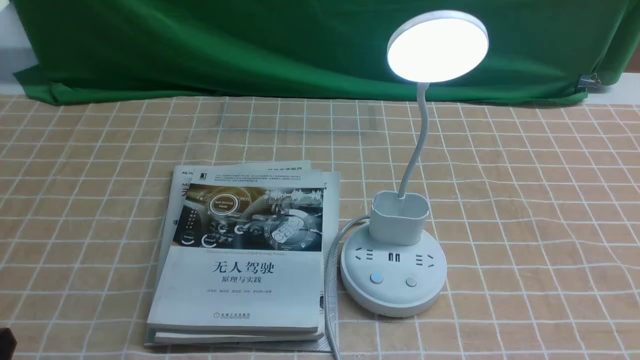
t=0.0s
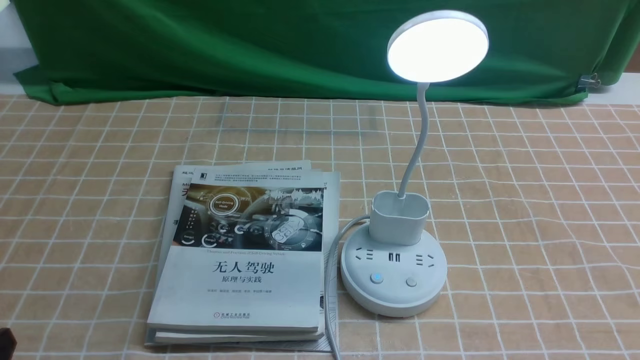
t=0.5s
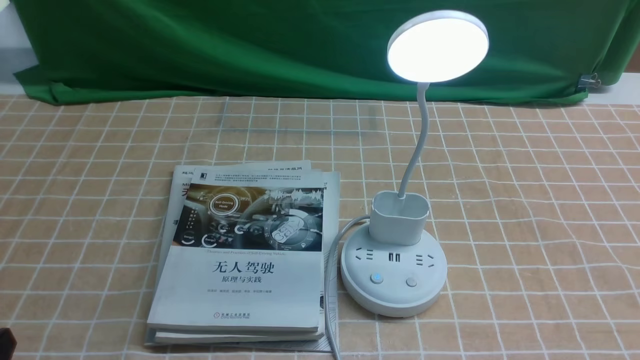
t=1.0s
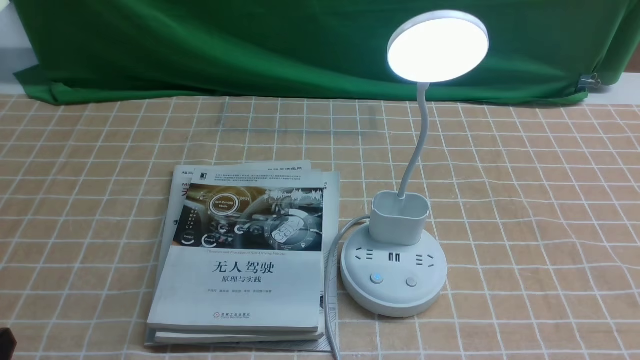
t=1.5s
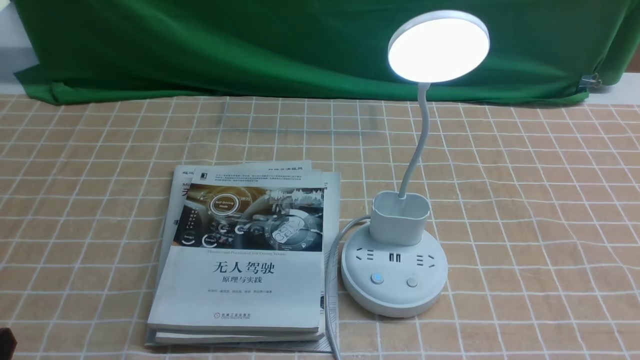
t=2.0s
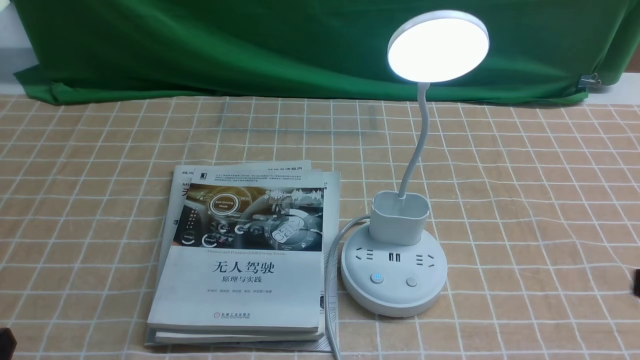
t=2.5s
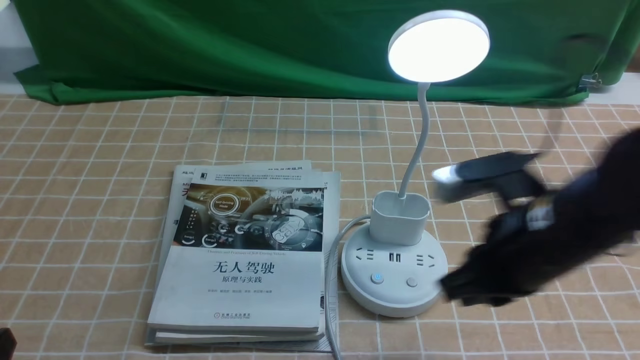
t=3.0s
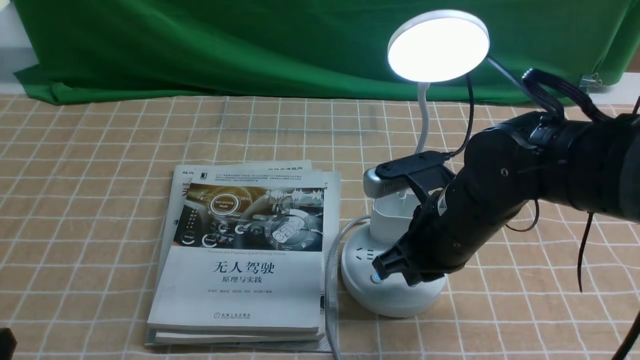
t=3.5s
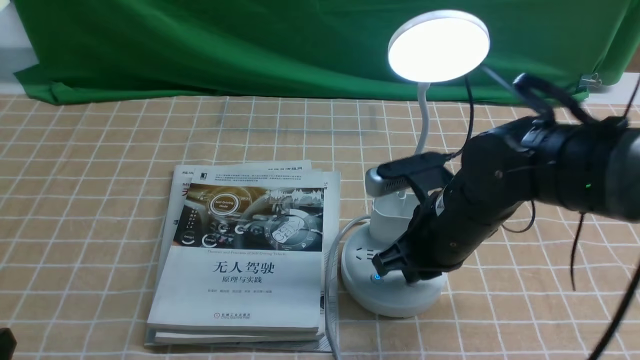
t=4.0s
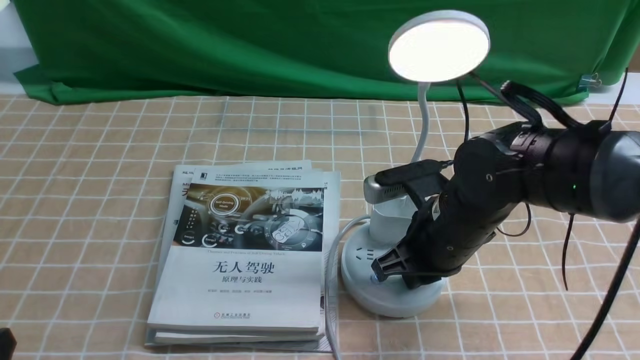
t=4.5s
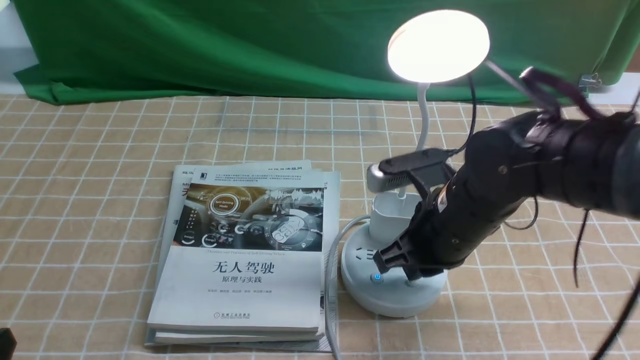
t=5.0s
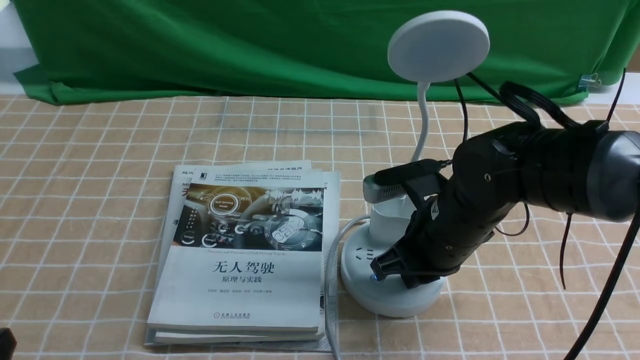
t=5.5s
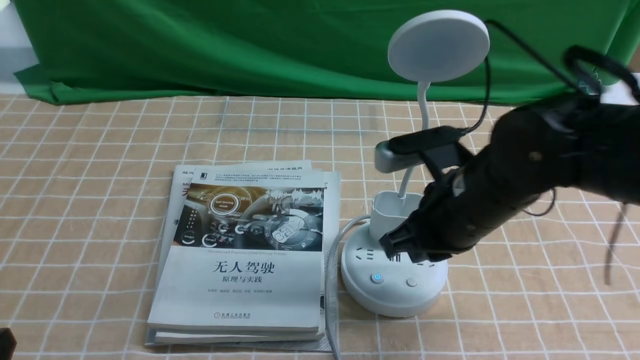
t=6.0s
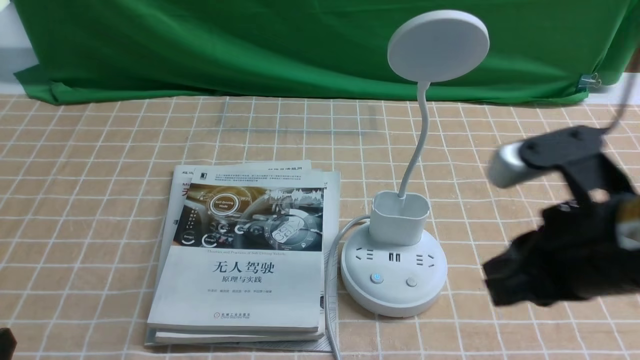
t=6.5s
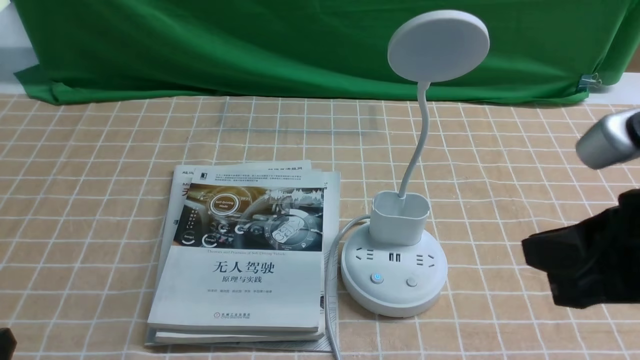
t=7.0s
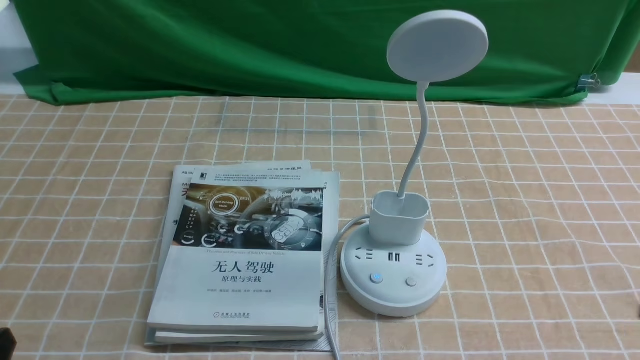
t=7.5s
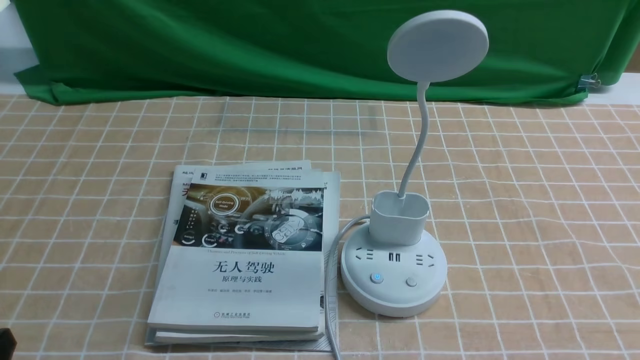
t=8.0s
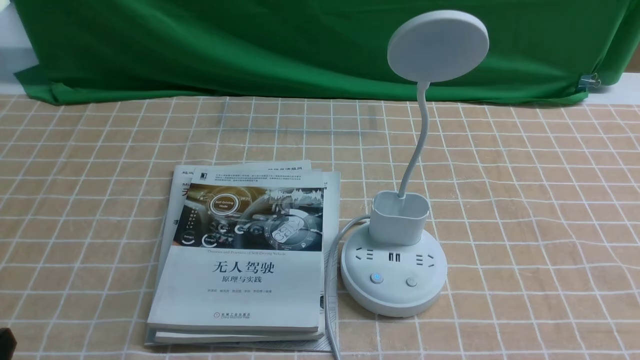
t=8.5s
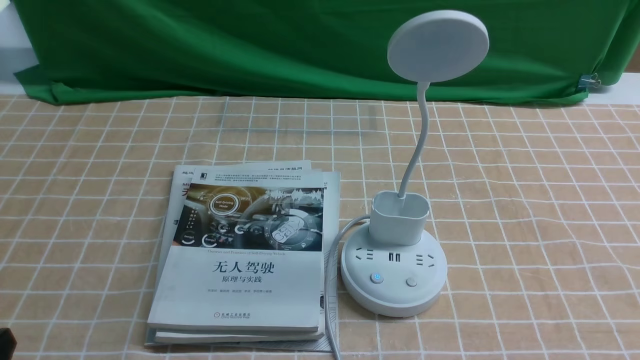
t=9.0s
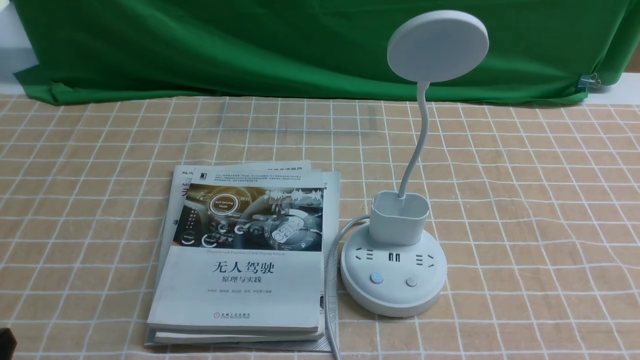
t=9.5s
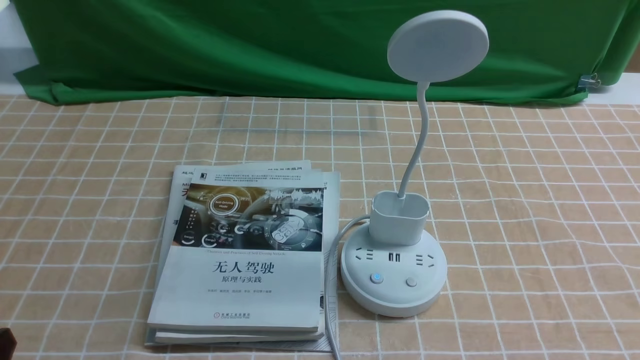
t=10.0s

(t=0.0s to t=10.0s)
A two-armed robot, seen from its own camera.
Task of the whole recording: turn off the desk lamp on the light coffee tablecloth by hand.
Step, t=0.0s - t=5.5s: use the right arm to press the button switch on the lamp holder.
t=2.0s - t=4.0s: The right gripper goes about 30 cm forward and to the left, and closes.
t=4.0s - t=6.0s: The grippers make only small movements.
t=6.0s - t=8.0s: The right gripper travels backward and to the right by roughly 30 cm.

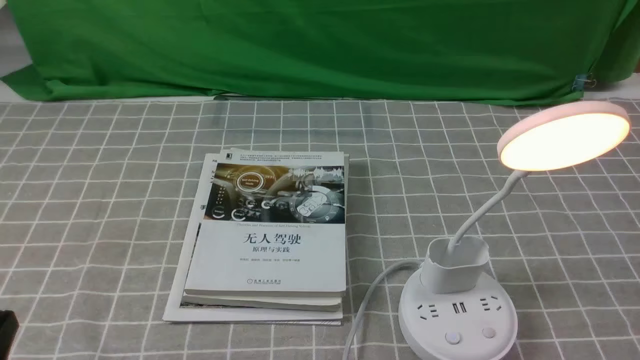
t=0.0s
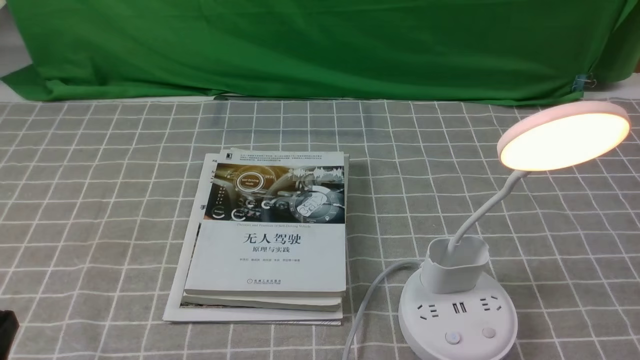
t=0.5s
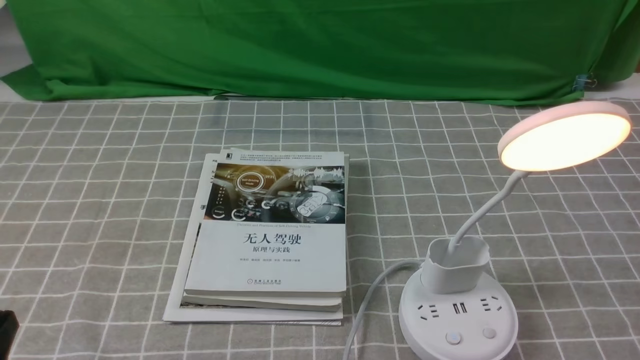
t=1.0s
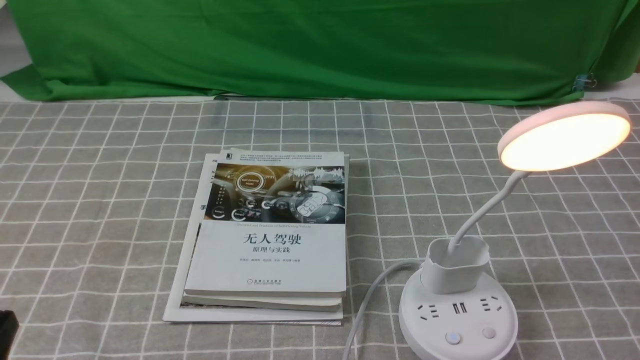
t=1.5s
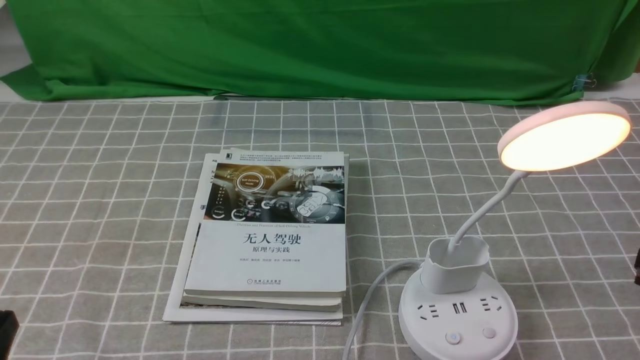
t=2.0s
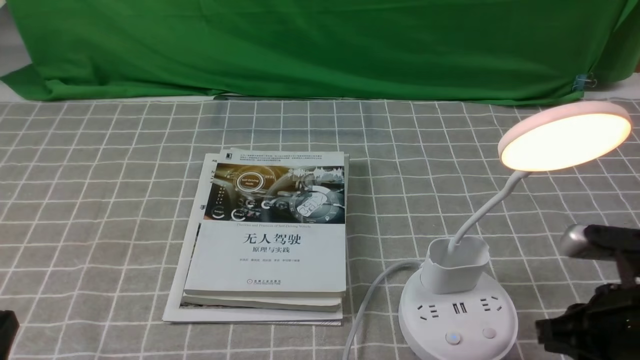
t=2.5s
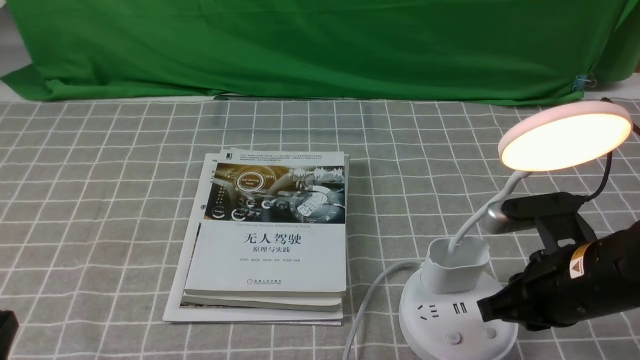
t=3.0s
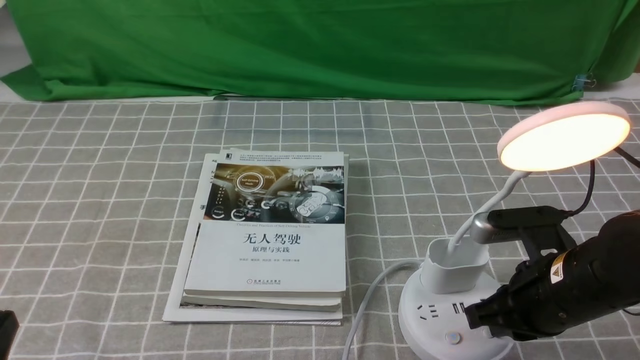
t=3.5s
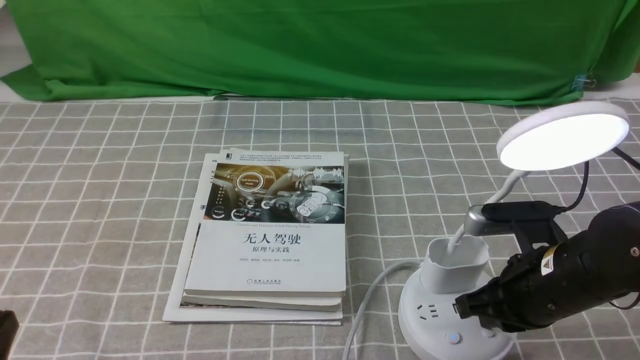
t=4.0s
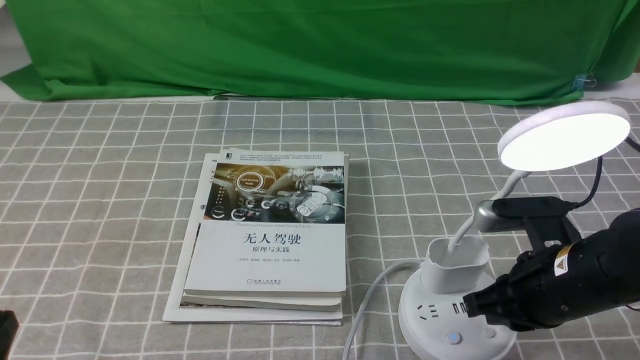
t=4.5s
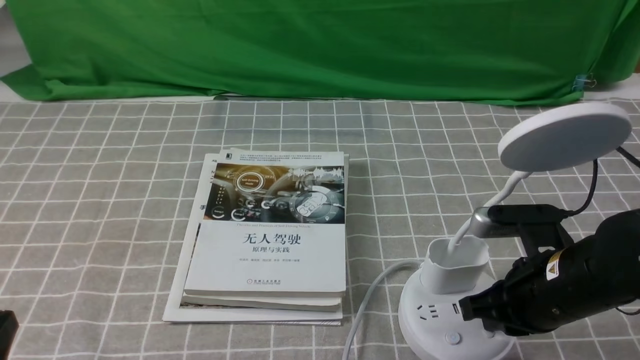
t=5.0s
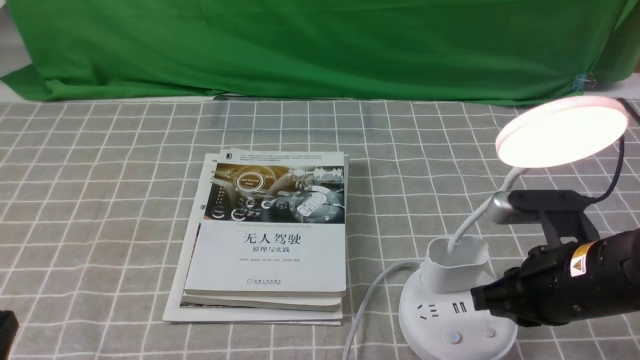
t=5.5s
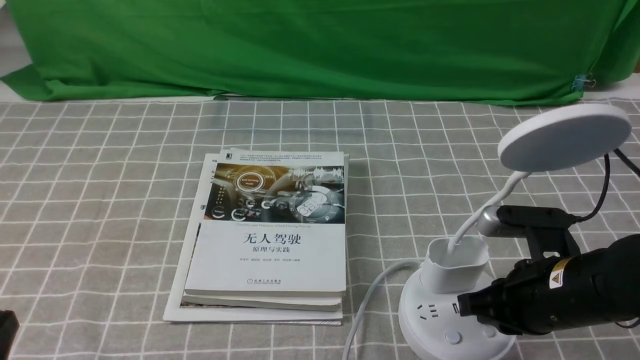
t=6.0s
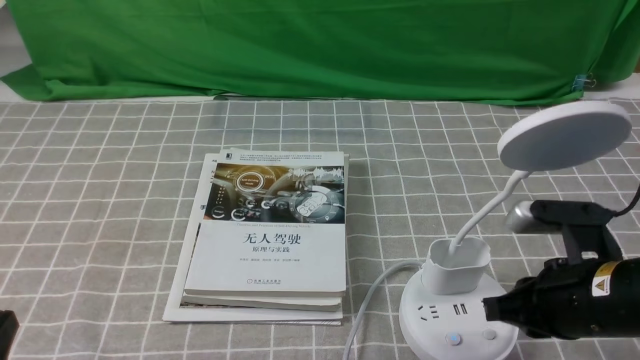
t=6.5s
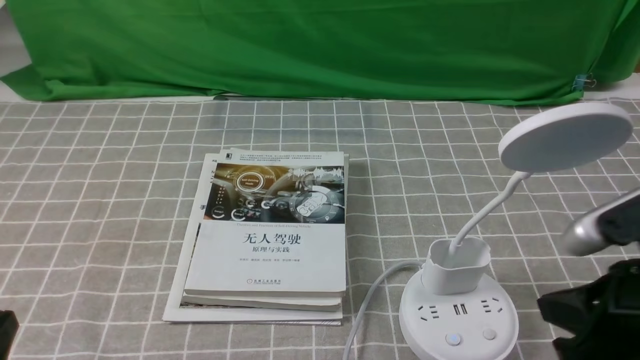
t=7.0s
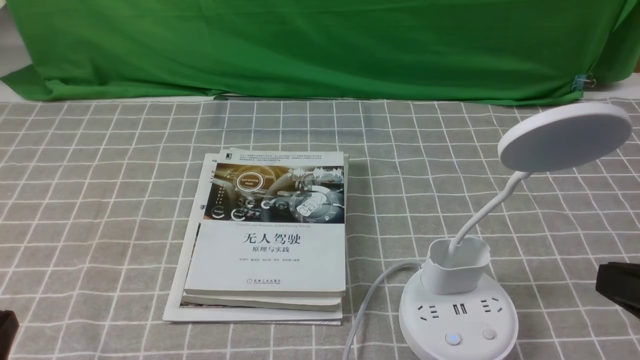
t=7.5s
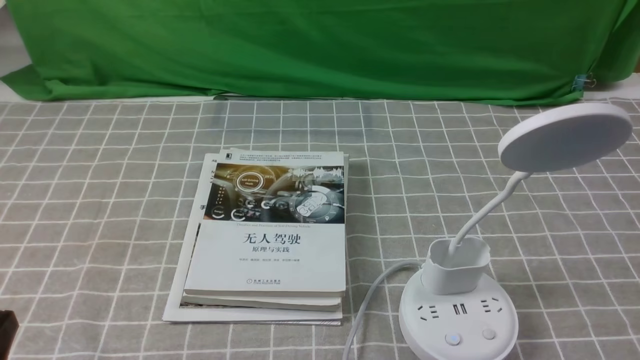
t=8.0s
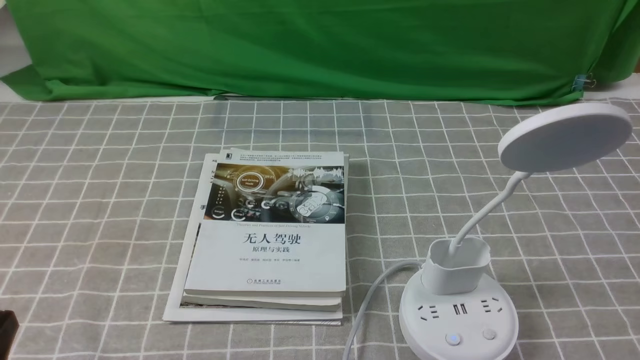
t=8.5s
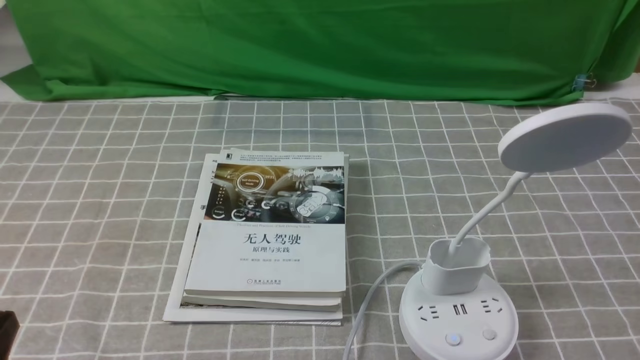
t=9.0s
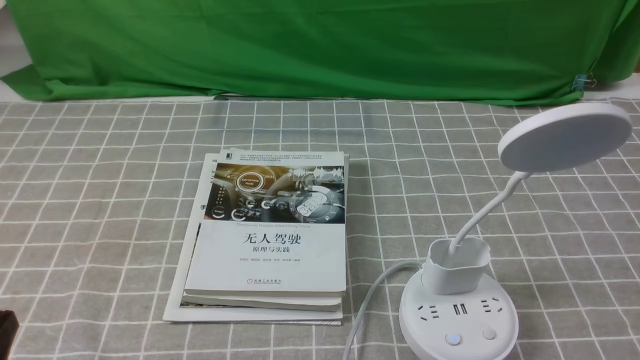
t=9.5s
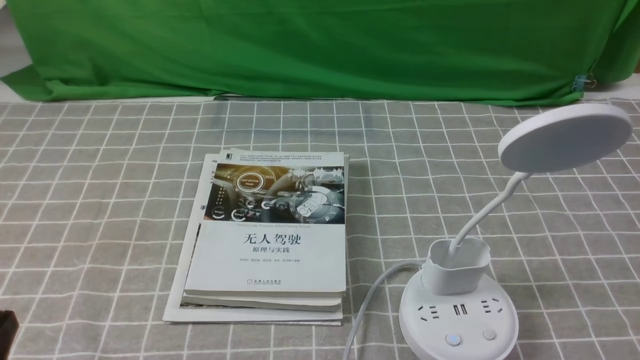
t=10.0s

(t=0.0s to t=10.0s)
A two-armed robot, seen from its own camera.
Task of the whole recording: turn off the desk lamp on the grey coffee tablecloth by hand.
Step, t=0.0s - t=6.0s: use the right arm to press the button switch on the lamp holder.
t=2.0s - t=4.0s: The right gripper shifts about 15 cm to the left, forward and downward, and closes.
t=4.0s - t=6.0s: There are only small adjustments of the grippers.
t=6.0s - t=8.0s: The right gripper is displaced upward, backward and to the right by some 20 cm, and opens its fingers.
